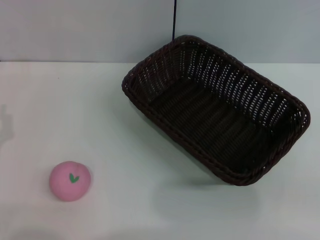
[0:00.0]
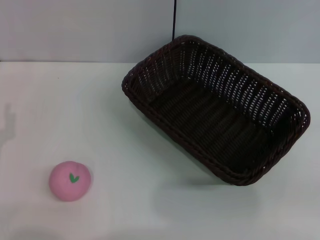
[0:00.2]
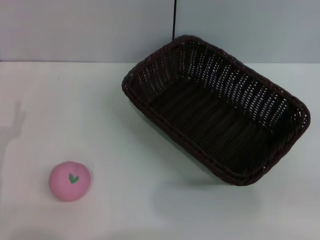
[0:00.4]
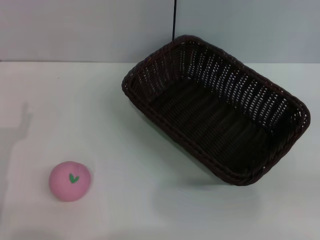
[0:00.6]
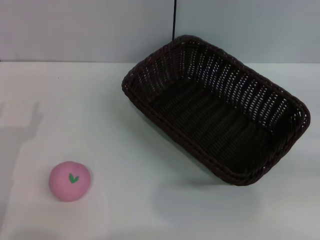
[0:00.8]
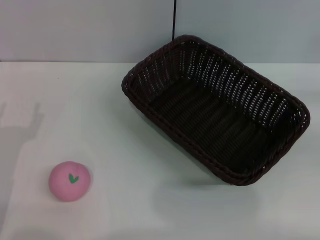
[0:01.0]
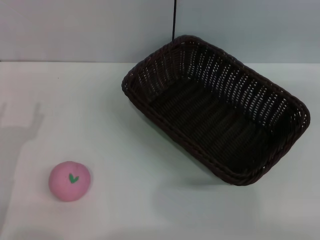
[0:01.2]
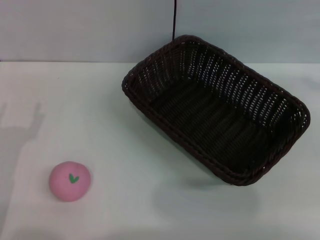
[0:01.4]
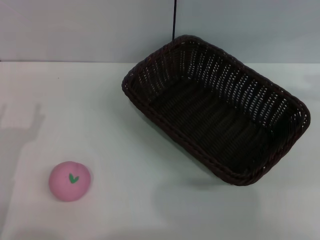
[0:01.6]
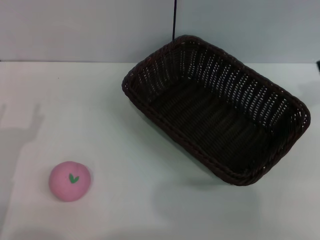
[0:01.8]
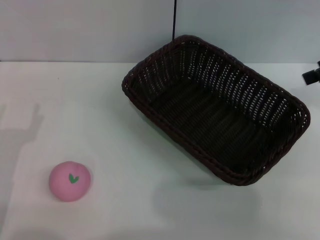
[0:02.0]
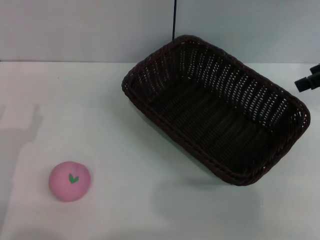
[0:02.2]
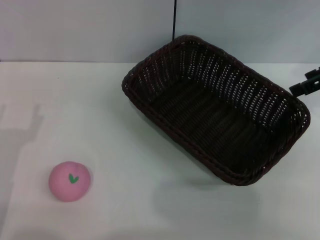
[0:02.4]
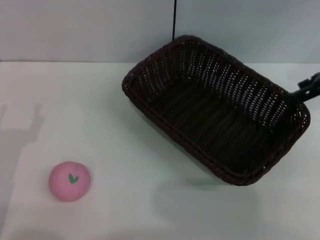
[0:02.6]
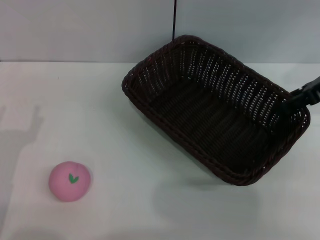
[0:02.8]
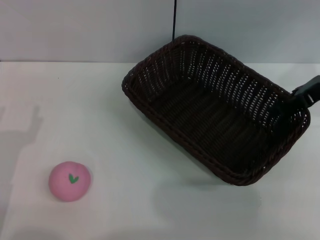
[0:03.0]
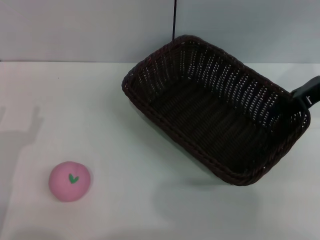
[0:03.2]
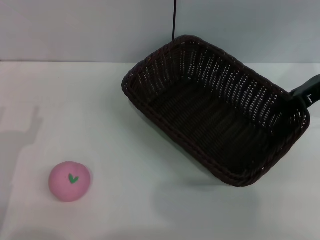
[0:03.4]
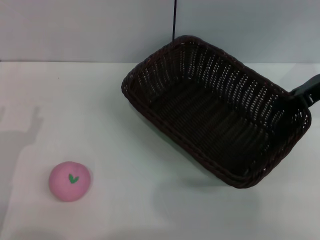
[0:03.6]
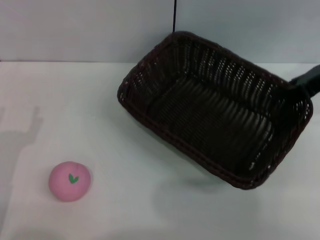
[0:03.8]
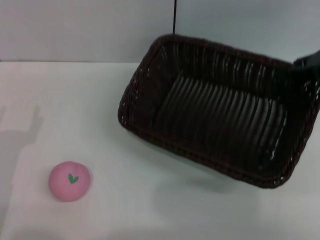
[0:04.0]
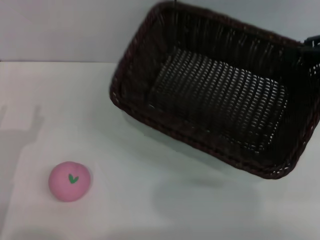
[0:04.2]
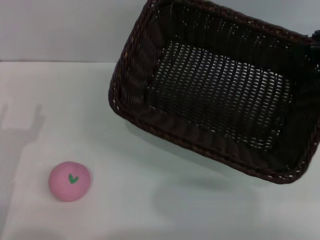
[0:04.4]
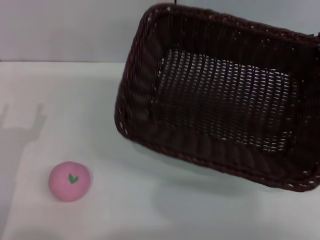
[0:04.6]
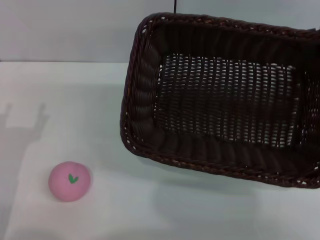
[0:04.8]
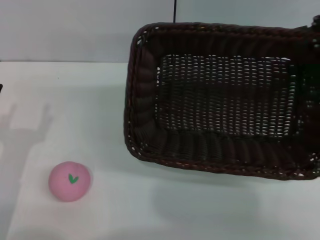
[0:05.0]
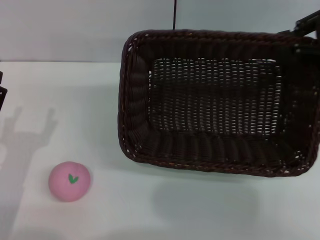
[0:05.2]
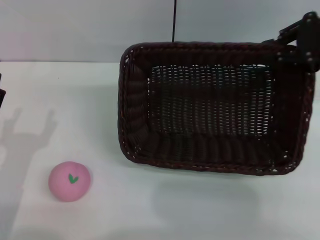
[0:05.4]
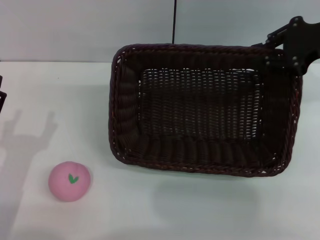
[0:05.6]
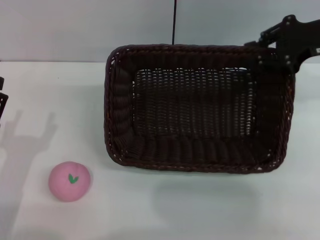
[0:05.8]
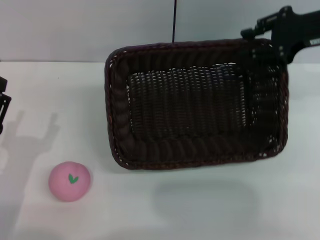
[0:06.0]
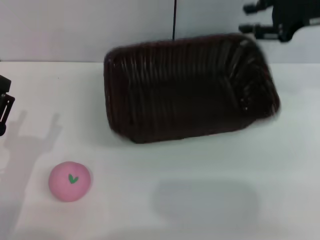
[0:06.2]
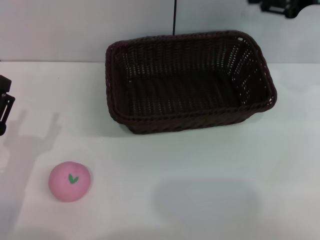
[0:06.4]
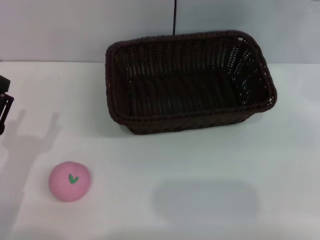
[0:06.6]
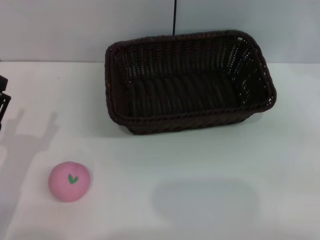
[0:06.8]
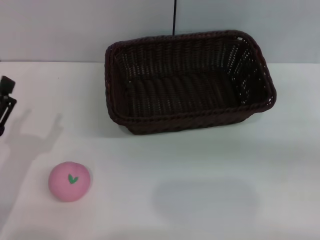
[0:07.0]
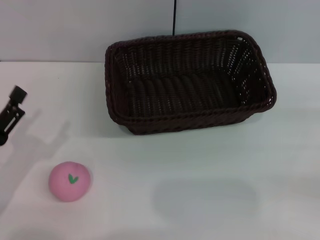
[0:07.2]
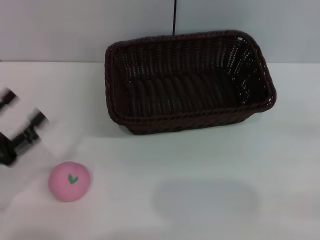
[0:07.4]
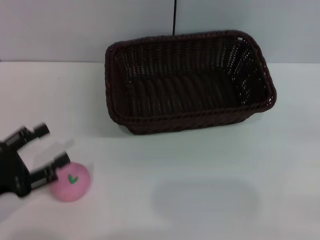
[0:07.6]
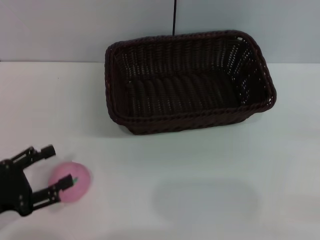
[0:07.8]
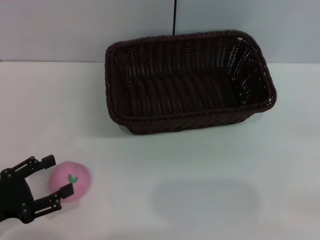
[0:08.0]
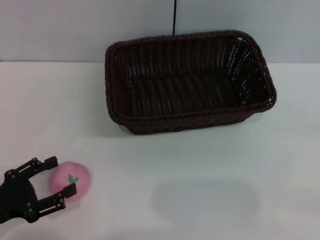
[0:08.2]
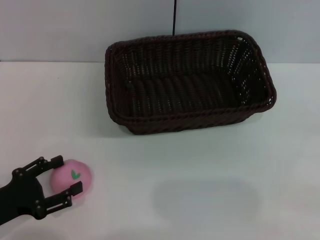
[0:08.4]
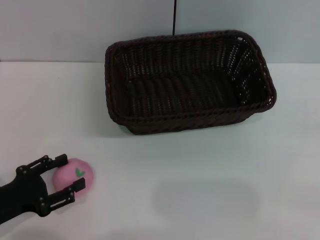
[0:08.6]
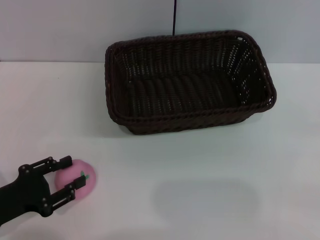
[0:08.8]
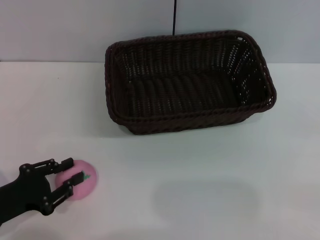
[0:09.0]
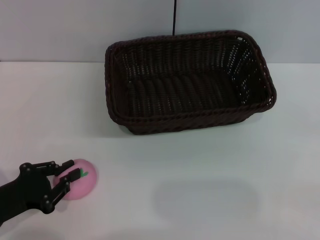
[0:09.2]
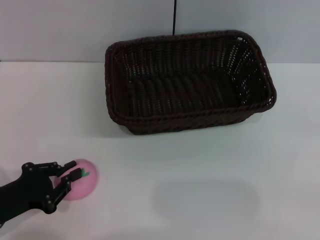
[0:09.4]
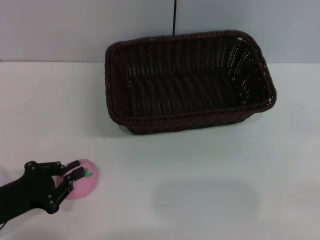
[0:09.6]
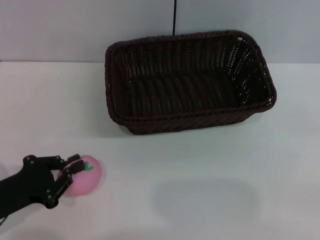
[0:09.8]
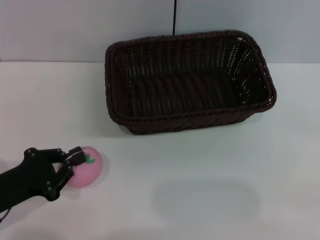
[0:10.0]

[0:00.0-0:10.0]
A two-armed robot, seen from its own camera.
Step, 0:00.0 to 0:04.6: Pick up the dark basket with the right gripper.
Step, 0:04.8 to 0:06.2: Place the dark basket in the center of view with the right gripper.
0:00.0 to 0:01.4: The right gripper travels upward and forward by roughly 25 cm.
0:01.4 to 0:02.8: The right gripper moves to the left, downward and forward, about 15 cm.
0:02.8 to 0:04.2: The right gripper changes place by roughly 5 cm, and closes.
0:04.2 to 0:05.8: The right gripper heads to the left, covering some 5 cm.
0:05.8 to 0:07.2: The right gripper is displaced backward, to the right and downward by about 25 cm.
0:08.6 to 0:10.0: The left gripper closes.

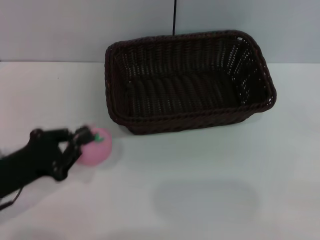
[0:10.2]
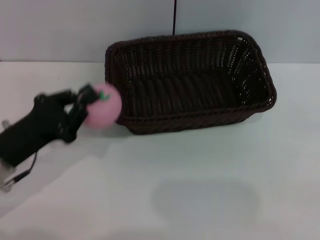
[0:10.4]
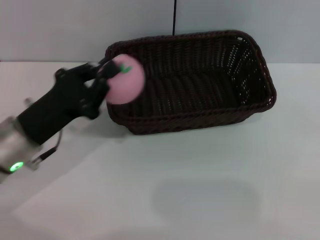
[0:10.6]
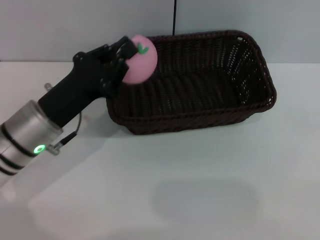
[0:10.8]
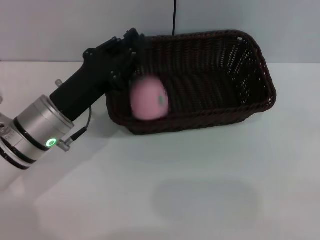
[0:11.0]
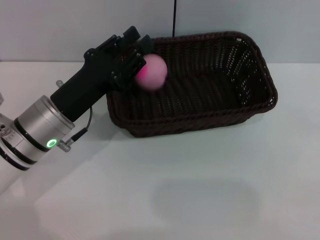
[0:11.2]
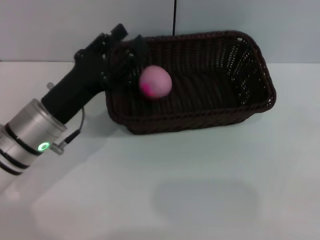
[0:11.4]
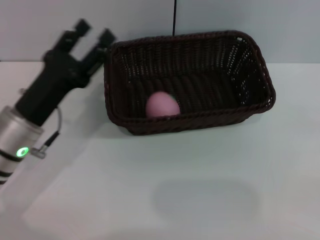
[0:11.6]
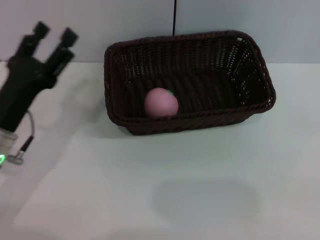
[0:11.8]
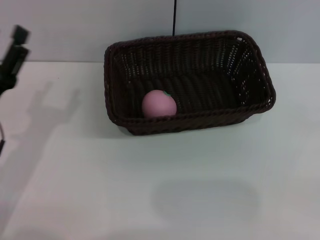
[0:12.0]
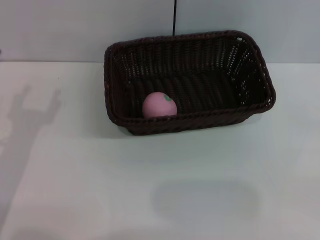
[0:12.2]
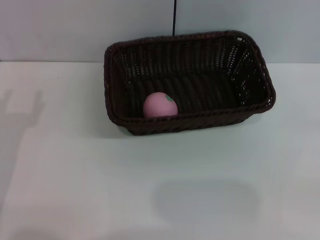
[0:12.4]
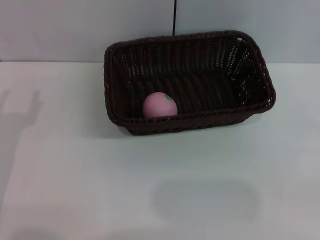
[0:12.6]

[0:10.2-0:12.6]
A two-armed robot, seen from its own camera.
Step, 0:10.6 to 0:11.6: Place the peach into the basket with the left gripper.
0:10.2 to 0:11.4: The left gripper moves to the right and forward, roughly 10 cm, and opens its fingers.
0:11.4 to 0:12.6: The left gripper moves to the left and backward, approximately 10 cm, and opens.
